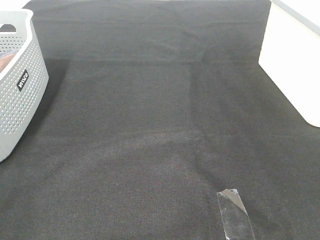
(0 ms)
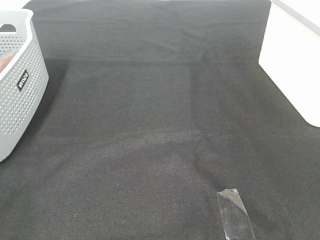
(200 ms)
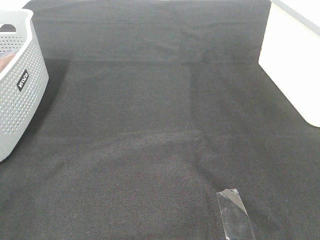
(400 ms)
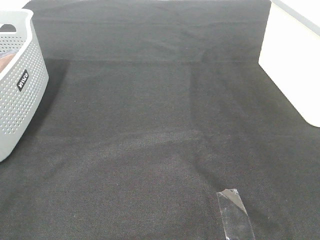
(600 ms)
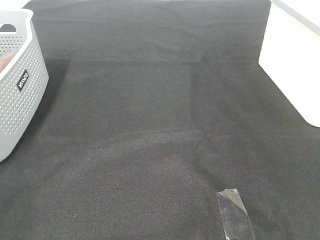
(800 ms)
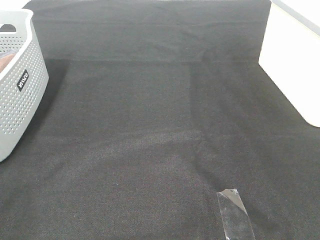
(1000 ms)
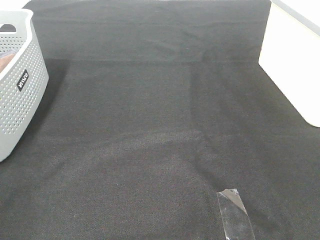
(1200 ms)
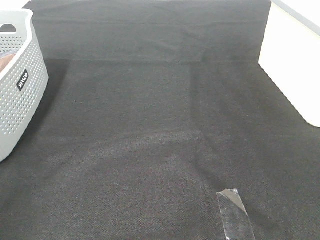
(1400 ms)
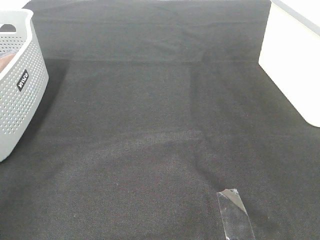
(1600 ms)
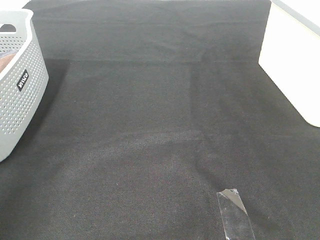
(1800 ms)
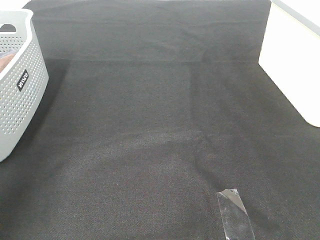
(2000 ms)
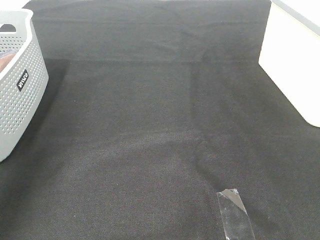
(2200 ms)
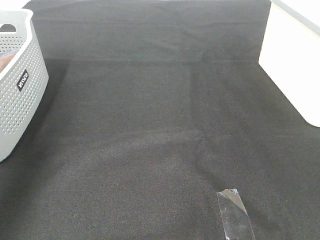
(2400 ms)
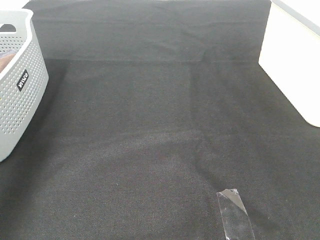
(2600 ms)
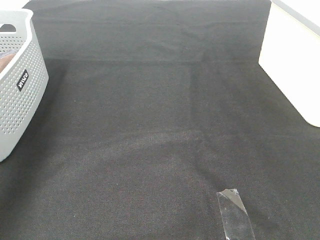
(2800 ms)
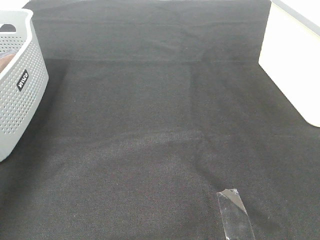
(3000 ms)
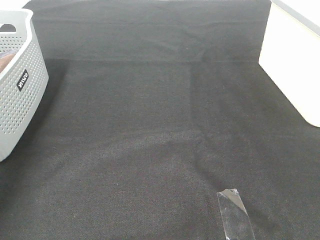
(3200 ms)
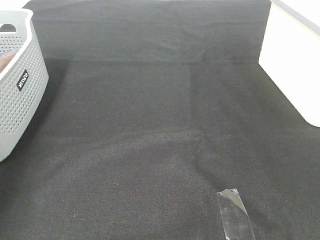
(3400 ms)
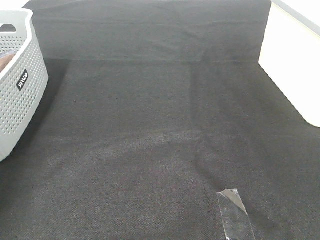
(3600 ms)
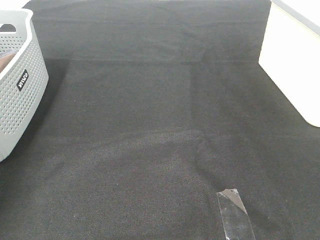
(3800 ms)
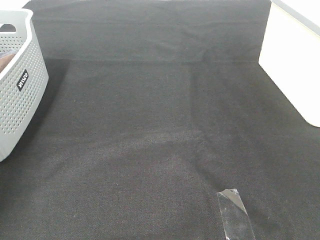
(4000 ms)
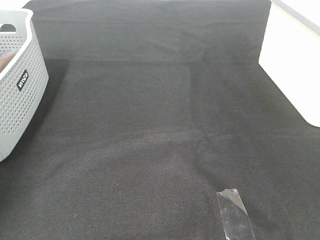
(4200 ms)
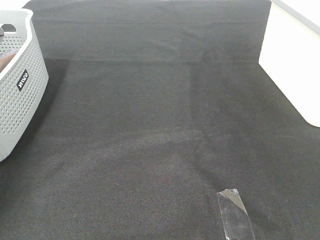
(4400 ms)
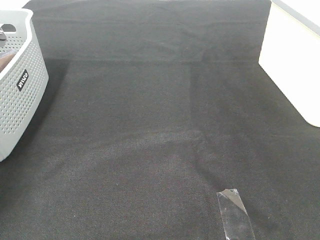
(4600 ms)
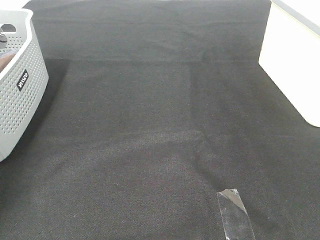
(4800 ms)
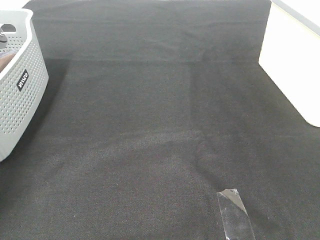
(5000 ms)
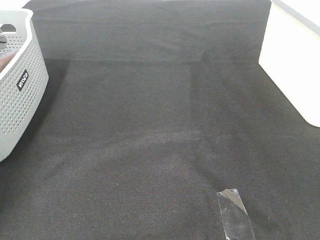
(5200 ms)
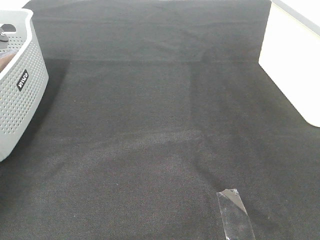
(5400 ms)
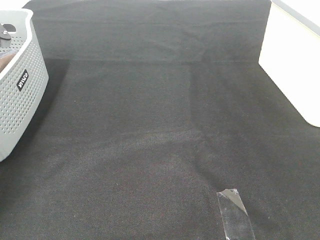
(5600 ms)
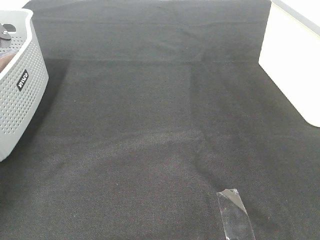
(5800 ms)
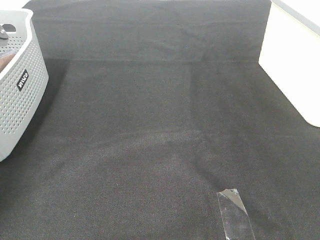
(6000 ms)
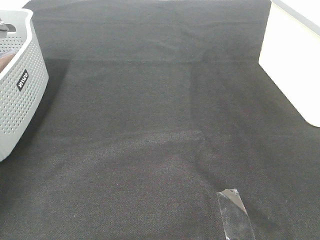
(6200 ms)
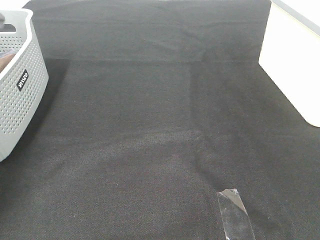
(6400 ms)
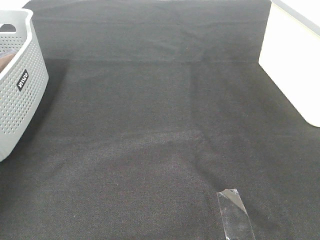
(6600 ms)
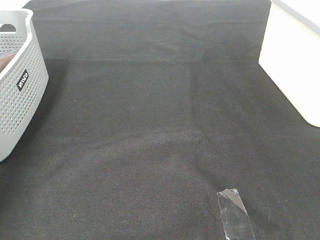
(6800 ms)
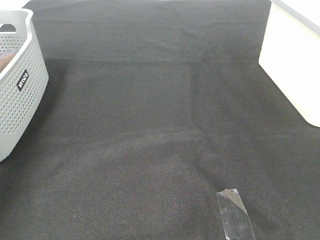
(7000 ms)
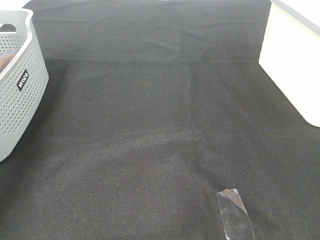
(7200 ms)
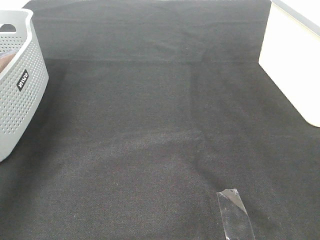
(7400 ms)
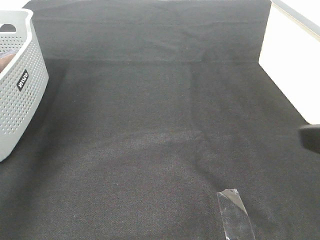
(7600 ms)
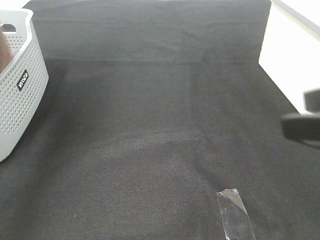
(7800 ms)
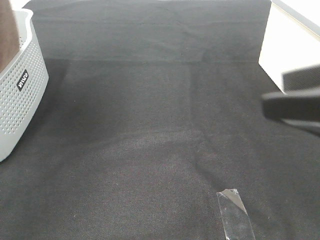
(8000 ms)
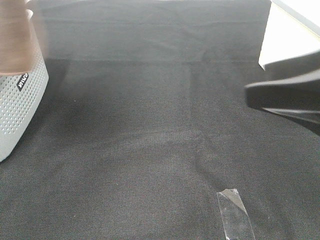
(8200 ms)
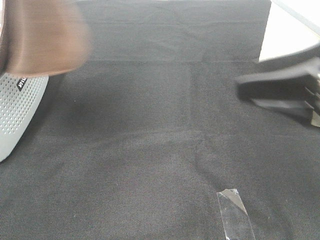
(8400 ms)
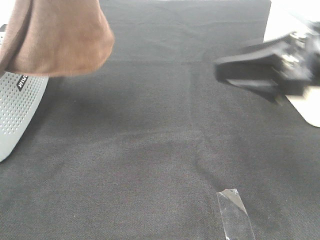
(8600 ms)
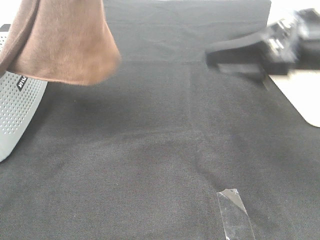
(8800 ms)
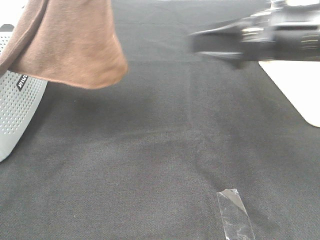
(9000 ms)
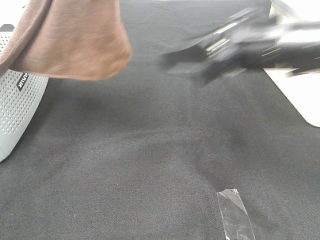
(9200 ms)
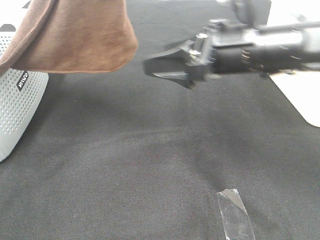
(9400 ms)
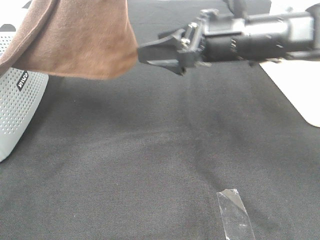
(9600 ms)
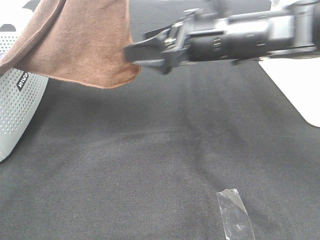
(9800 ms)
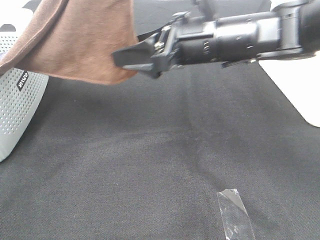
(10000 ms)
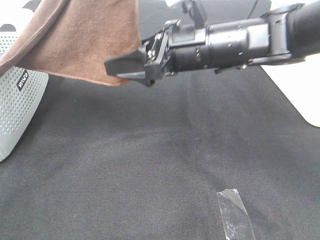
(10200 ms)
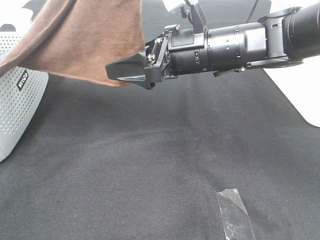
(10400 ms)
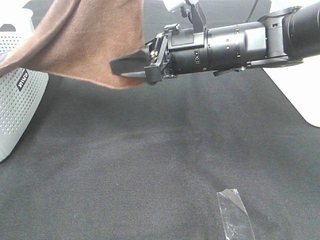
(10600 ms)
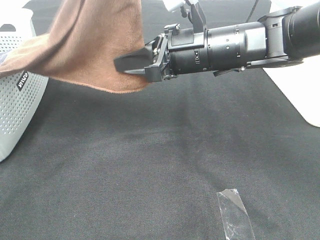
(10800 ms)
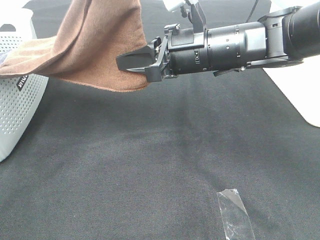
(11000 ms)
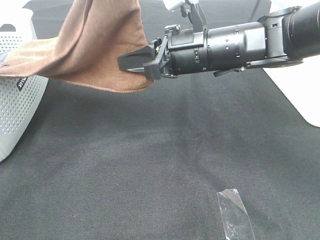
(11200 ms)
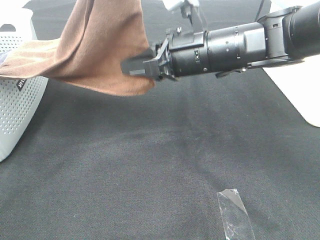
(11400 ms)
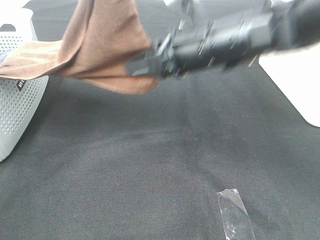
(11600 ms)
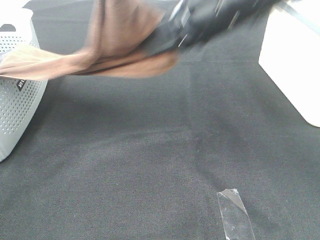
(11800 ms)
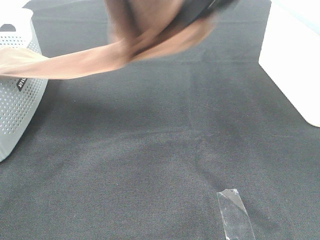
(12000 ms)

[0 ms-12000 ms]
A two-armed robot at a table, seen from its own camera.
Task of the whole recording: Remove the towel and place it.
Step, 7400 ms to 11200 ms: Right hand: grab a corner of the brown towel and straighten it.
1600 ms to 3000 ms: The left gripper shifts roughly 25 cm forward.
6000 ms to 7600 ms: The left gripper is displaced upward and backward by roughly 30 cm.
7600 ms to 9000 ms: The left gripper is displaced to the right by roughly 20 cm, while the right gripper shifts roughly 15 cm forward.
9000 ms to 10400 ms: The right gripper goes about 10 cm to the left.
10400 ms to 12000 ms: The right gripper heads upward, covering about 15 cm, and closes.

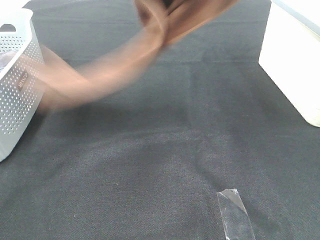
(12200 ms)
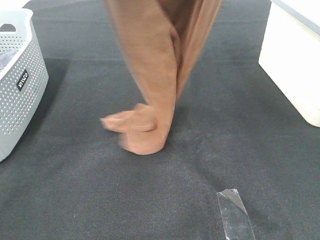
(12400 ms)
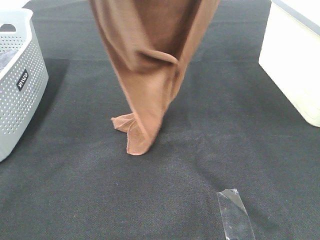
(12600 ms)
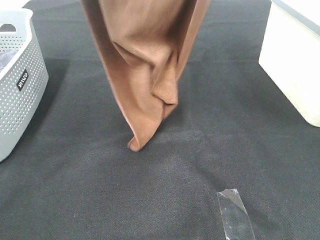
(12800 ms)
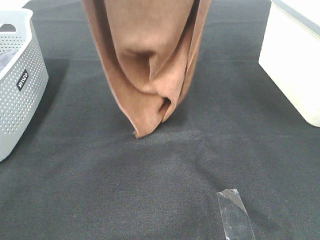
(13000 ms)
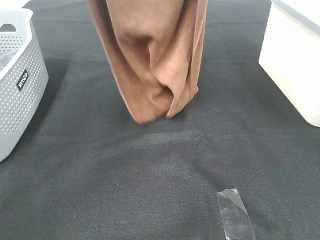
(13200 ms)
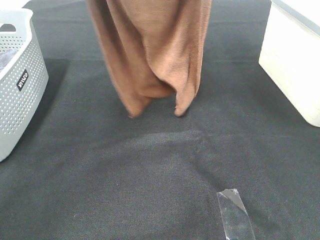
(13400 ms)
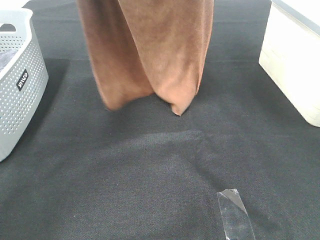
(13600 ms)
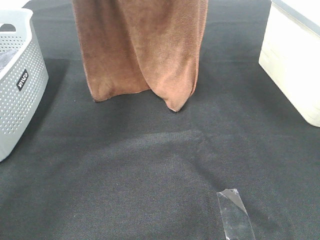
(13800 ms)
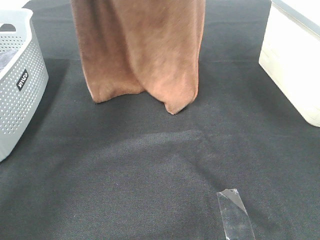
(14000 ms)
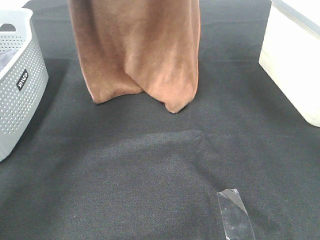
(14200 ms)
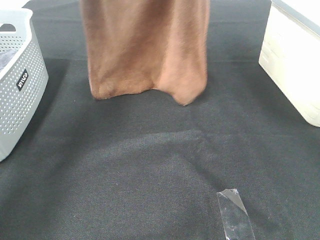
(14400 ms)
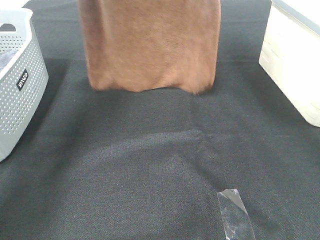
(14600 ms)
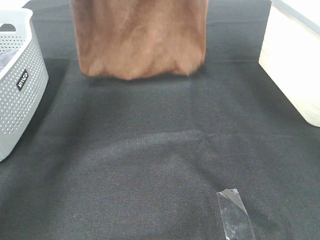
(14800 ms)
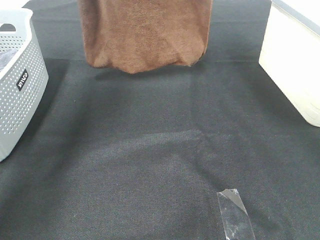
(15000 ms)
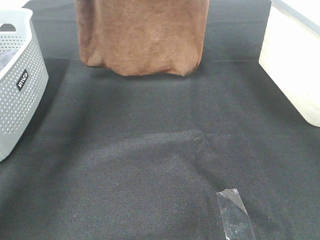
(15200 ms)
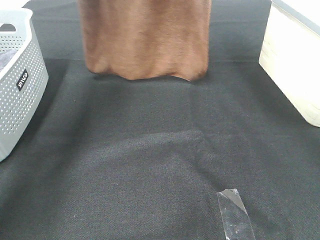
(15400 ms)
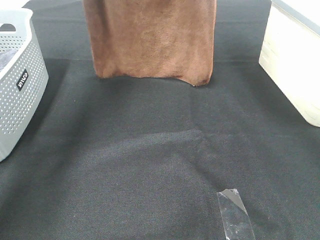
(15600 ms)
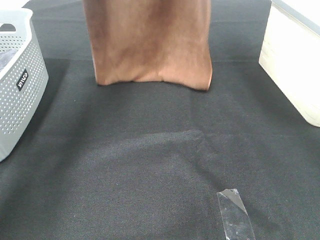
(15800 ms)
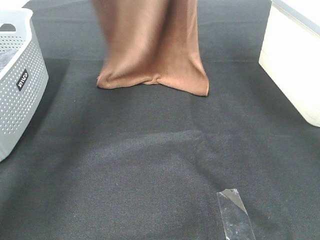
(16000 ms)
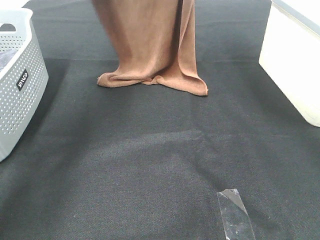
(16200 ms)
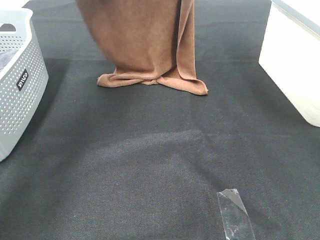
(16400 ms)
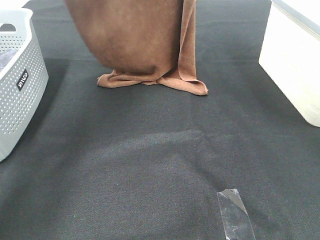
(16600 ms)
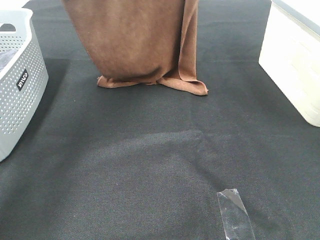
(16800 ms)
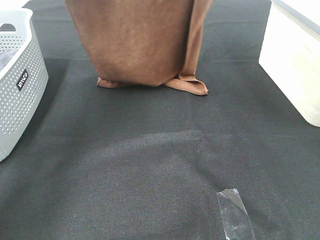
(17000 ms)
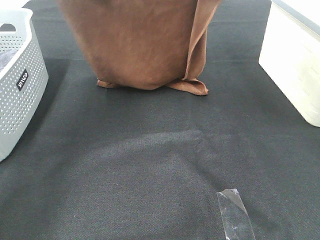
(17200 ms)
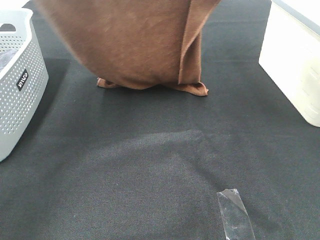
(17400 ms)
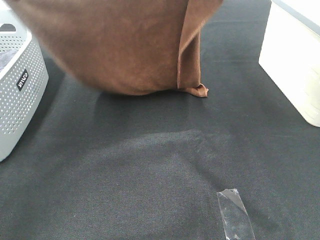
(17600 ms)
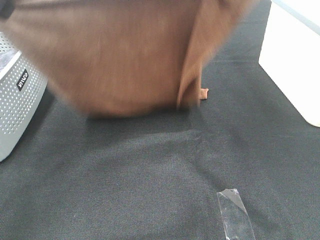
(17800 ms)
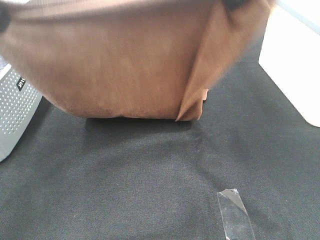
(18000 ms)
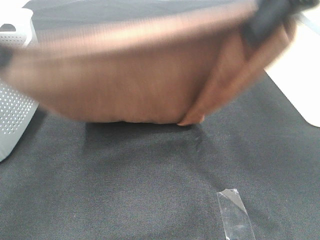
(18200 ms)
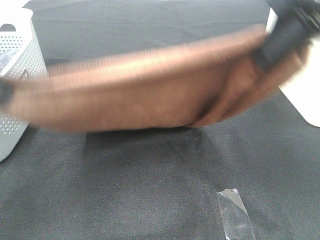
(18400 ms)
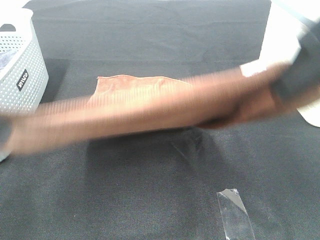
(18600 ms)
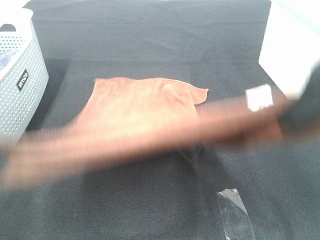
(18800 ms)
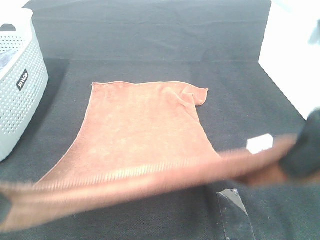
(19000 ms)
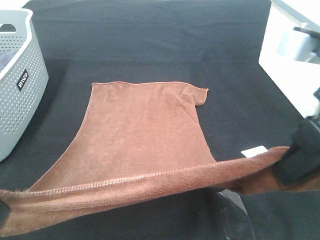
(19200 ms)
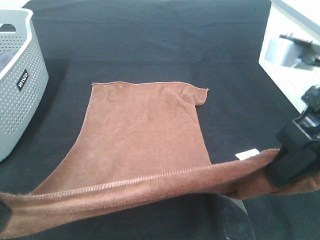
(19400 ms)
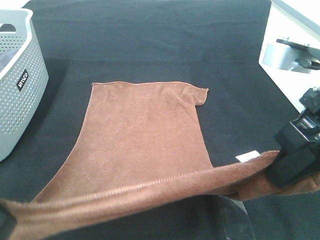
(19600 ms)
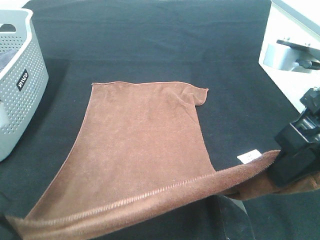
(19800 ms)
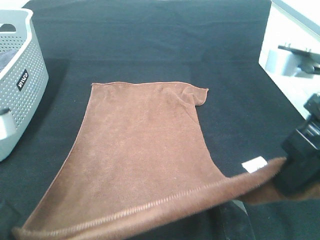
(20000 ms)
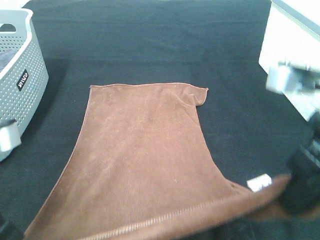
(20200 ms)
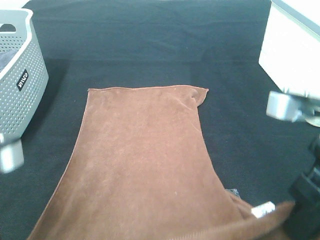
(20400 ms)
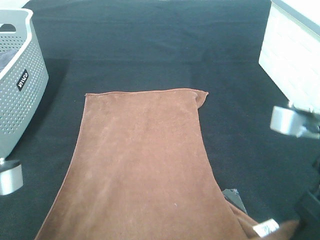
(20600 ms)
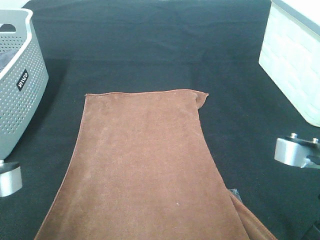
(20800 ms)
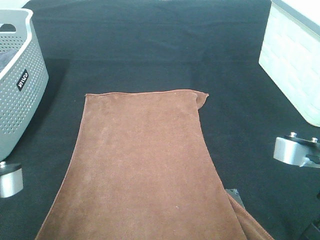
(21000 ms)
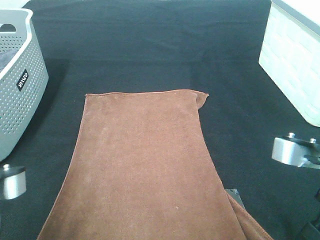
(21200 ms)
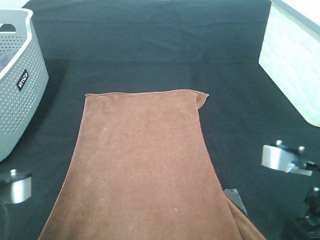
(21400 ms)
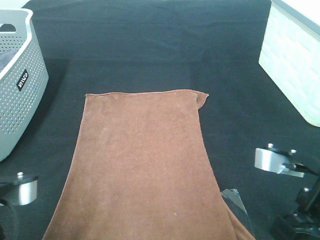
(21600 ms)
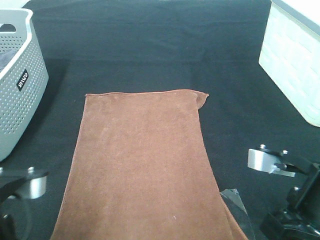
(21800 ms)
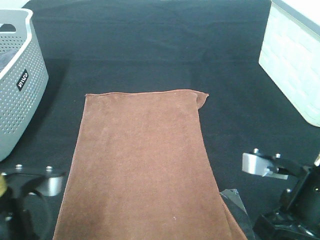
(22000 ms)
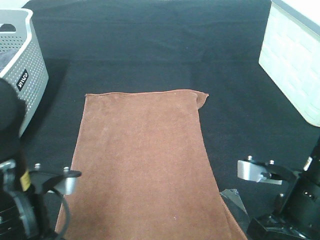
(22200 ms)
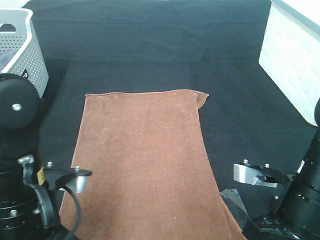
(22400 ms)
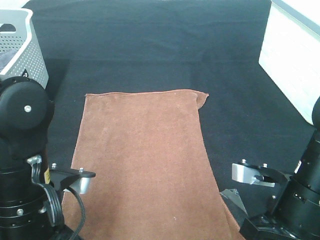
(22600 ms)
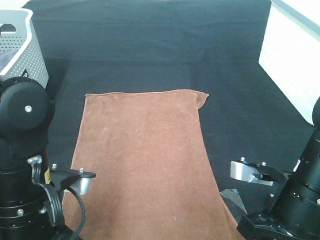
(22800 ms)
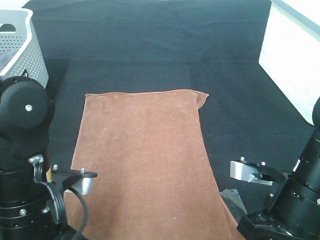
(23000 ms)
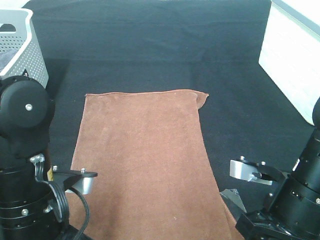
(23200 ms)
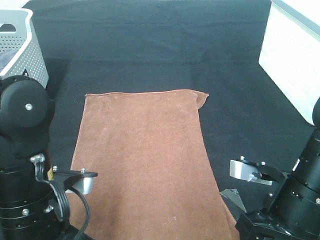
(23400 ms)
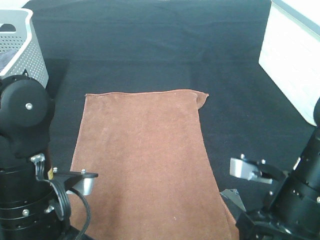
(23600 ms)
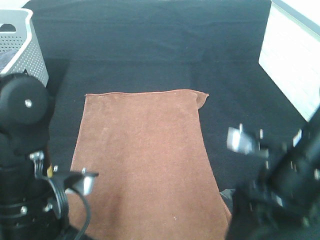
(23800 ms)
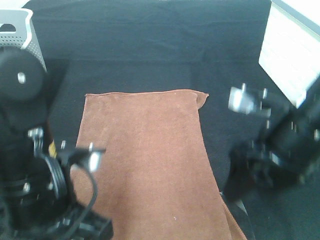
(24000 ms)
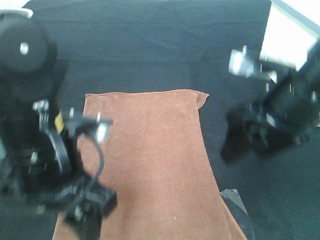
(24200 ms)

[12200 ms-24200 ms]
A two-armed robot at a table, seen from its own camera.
Task of the whole recording: Remove the towel and place it.
Step, 12200 ms to 18200 ms: Left hand: spread the brown towel flat on the table.
Step, 12200 ms to 18200 ms: Right hand: spread the brown towel flat on the table.
12200 ms to 13800 ms: The left gripper moves forward and to the left, about 15 cm, while the right gripper shifts about 10 cm forward and upward.
13800 ms to 15200 ms: Both grippers move forward, approximately 5 cm.
15200 ms to 16600 ms: The left gripper moves downward, roughly 5 cm.
16600 ms to 18200 ms: Both grippers travel together backward, roughly 20 cm.
18200 ms to 19800 ms: The grippers both shift downward and backward by approximately 15 cm.
19800 ms to 21200 ms: The right gripper is displaced downward and backward by approximately 10 cm. Meanwhile the left gripper changes place by approximately 5 cm.
21200 ms to 22600 ms: The right gripper is displaced downward by about 10 cm. The left gripper shifts about 10 cm forward and downward.
22600 ms to 24200 ms: The right gripper travels upward and forward by approximately 15 cm, and opens; the left gripper travels upward by about 5 cm, and opens up.
